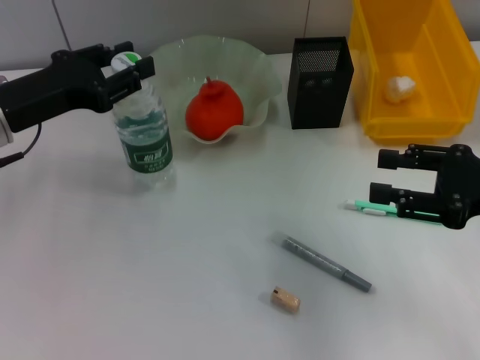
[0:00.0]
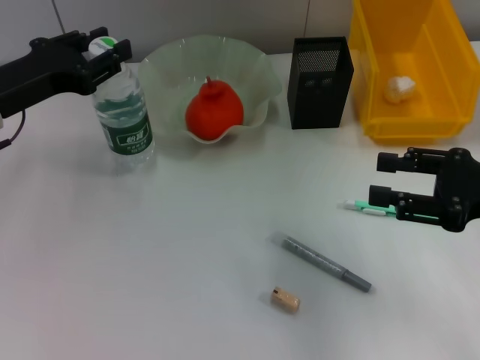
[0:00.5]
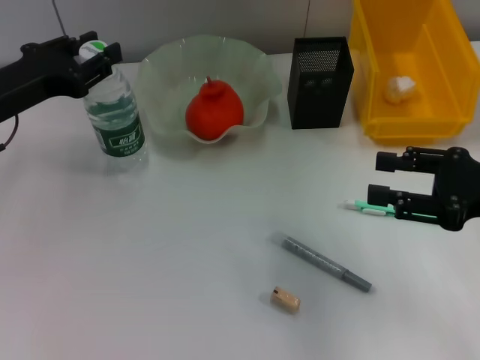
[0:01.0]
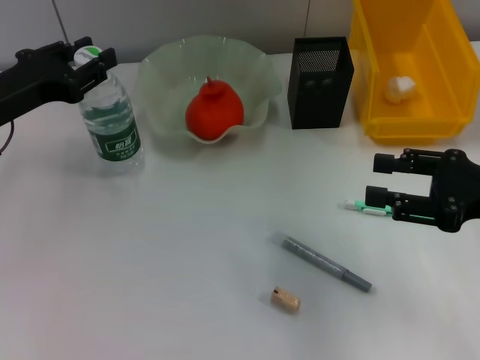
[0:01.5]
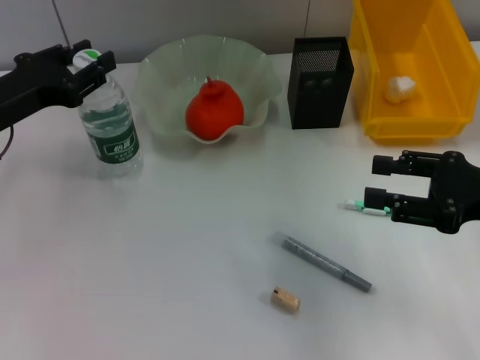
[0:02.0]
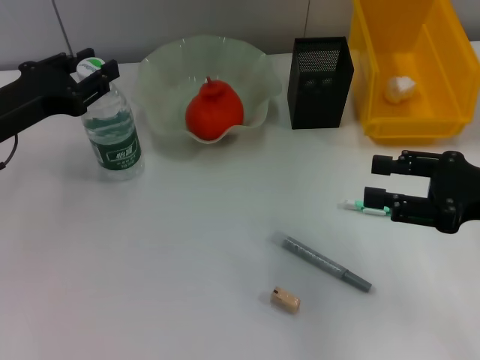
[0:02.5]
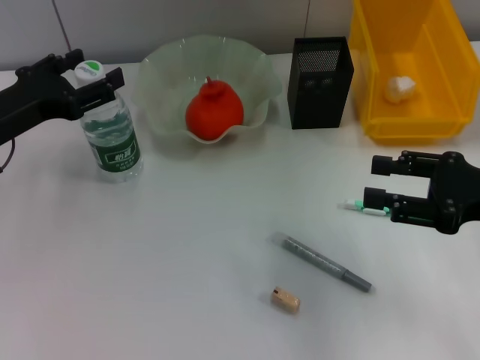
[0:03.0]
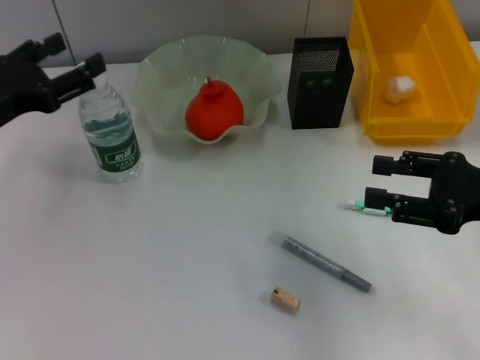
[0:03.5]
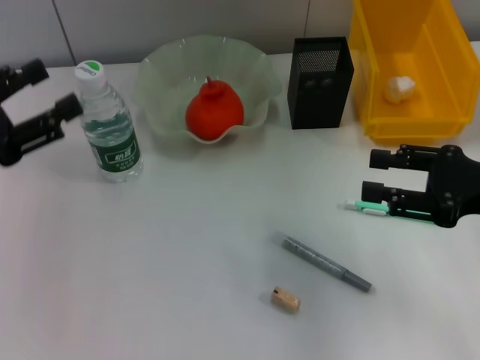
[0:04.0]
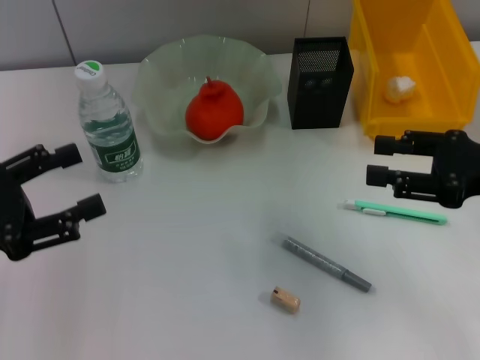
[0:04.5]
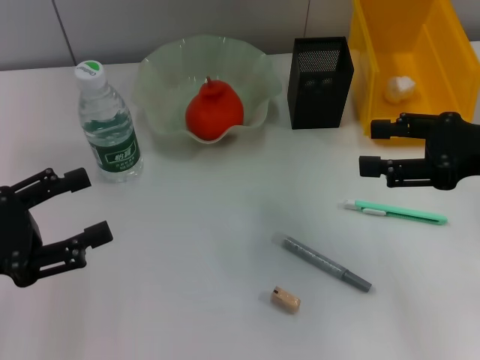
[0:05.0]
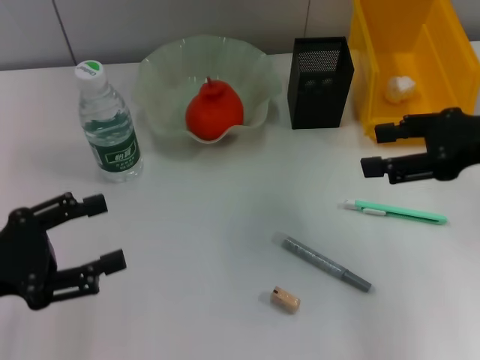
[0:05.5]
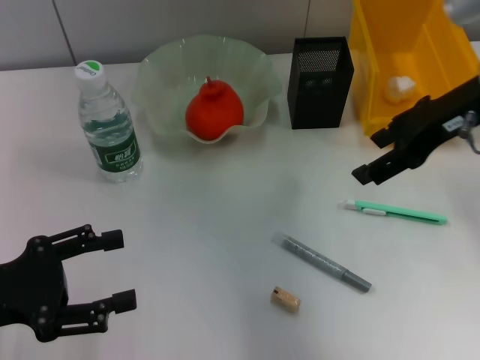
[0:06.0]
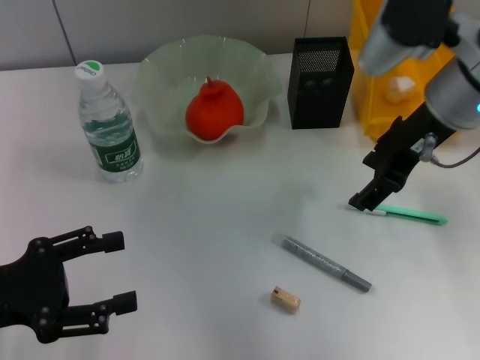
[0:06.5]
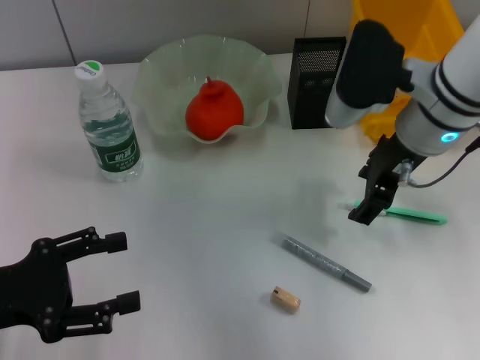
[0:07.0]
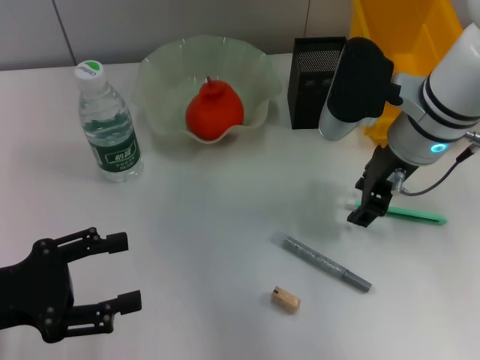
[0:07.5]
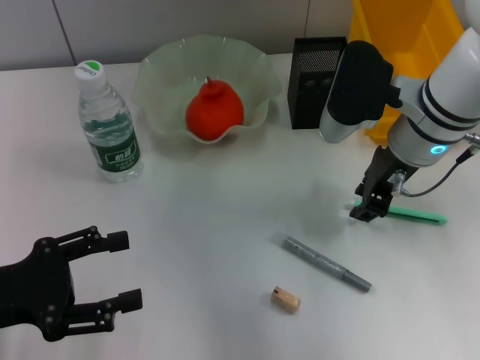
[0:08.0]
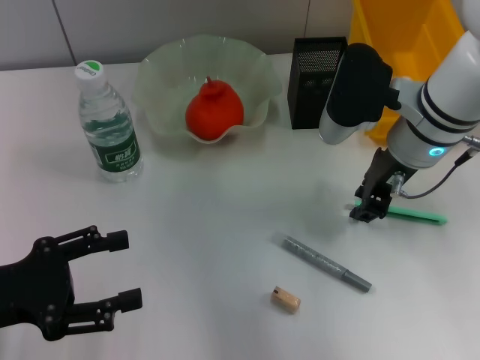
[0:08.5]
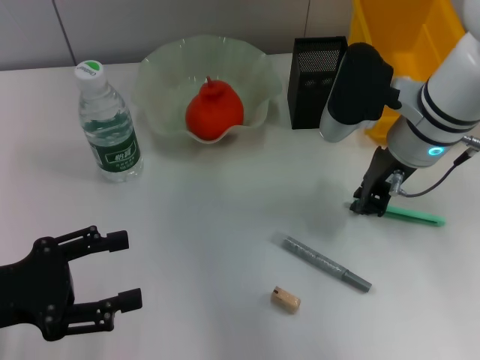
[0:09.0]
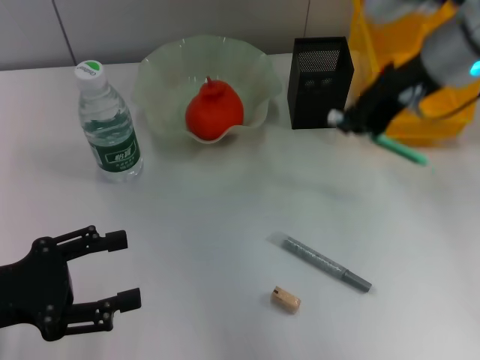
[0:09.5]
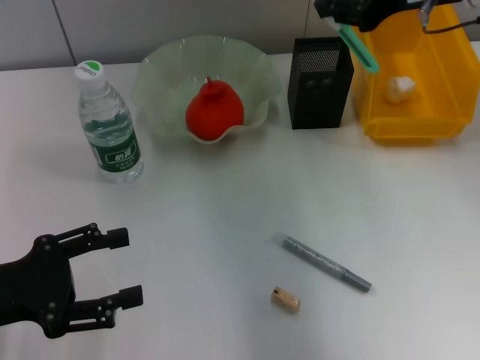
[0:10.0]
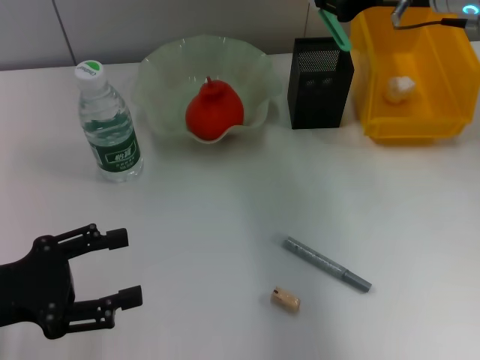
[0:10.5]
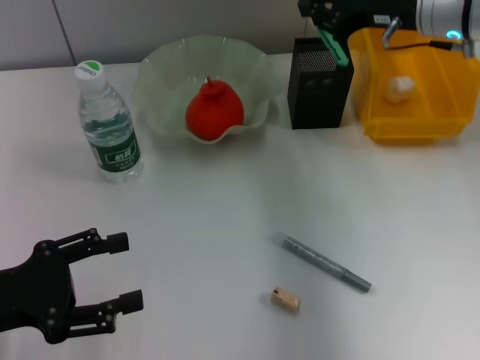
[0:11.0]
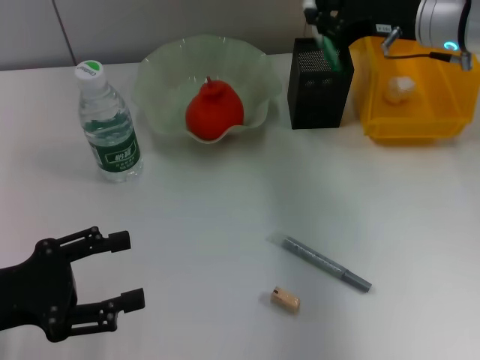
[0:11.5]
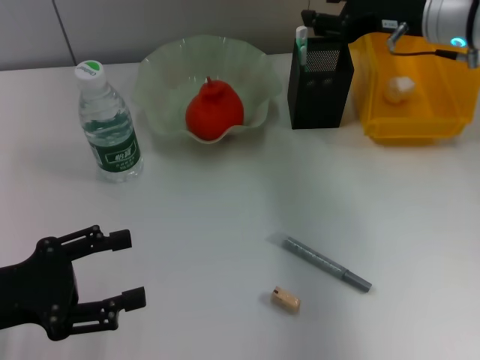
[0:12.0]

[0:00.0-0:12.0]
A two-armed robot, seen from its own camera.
Step, 0:00.0 to 0:02.5: Place the water bottle on the table with the left hand.
Step, 0:03.0 to 0:08.5: Grab the blue utility knife with the right hand.
Step, 0:09.0 to 0:11.5: Place the blue utility knife into the pen holder with the right hand.
0:00.0 to 0:02.0: There are only small adjustments of the grippers.
0:02.0 to 0:04.0: The left gripper travels backward by about 10 cm, and opens its fingers.
0:04.0 to 0:06.0: The right gripper travels upward, forward and to the left by about 15 cm; the left gripper moves backward, about 5 cm.
0:06.0 to 0:08.0: The right gripper goes some 10 cm downward and to the left, and closes up.
0:08.0 to 0:10.0: The right gripper heads upward and to the right, covering about 15 cm.
0:10.0 to 0:12.0: The right gripper moves downward, roughly 10 cm, and opens its fingers.

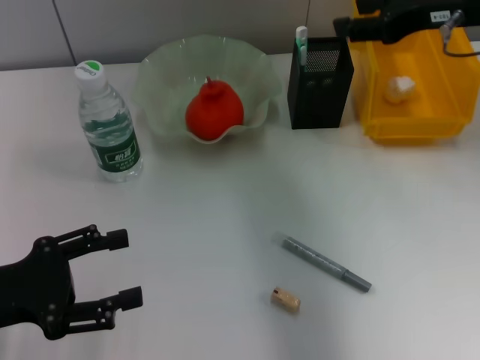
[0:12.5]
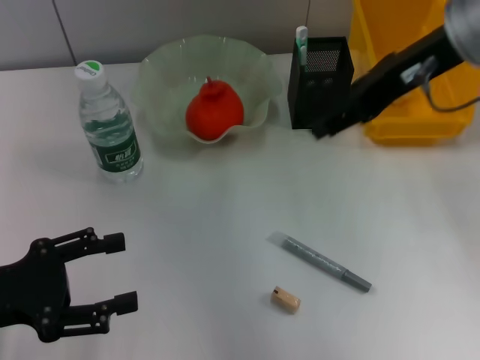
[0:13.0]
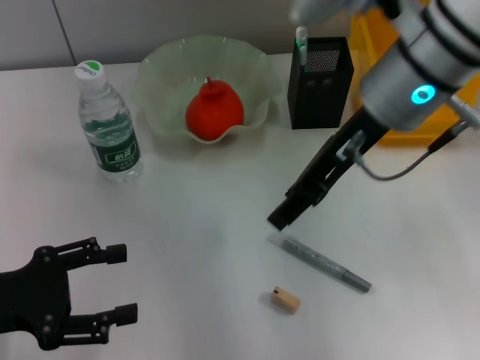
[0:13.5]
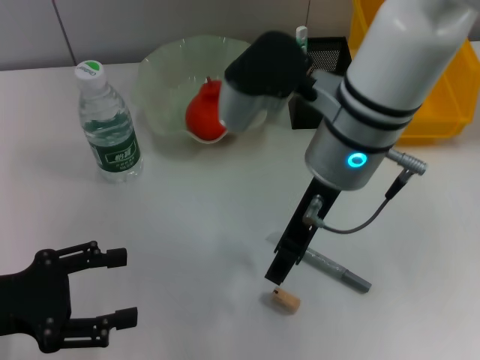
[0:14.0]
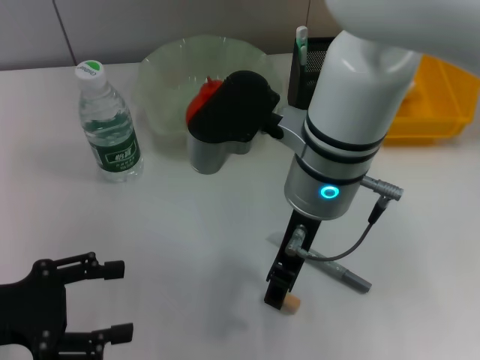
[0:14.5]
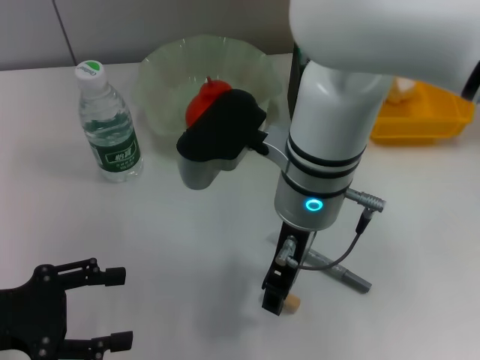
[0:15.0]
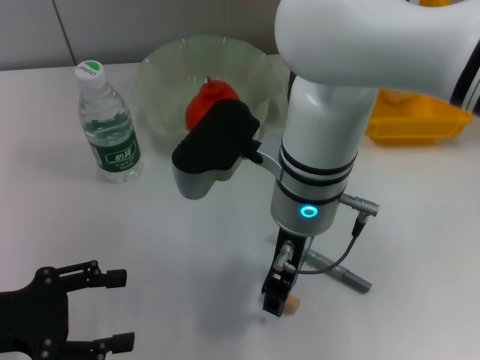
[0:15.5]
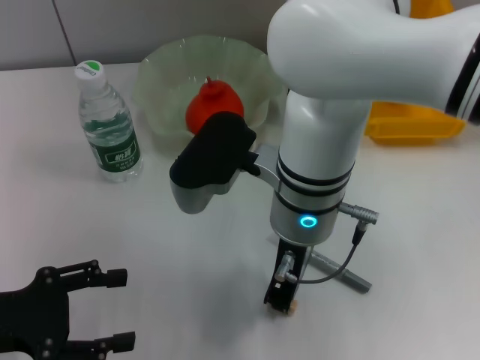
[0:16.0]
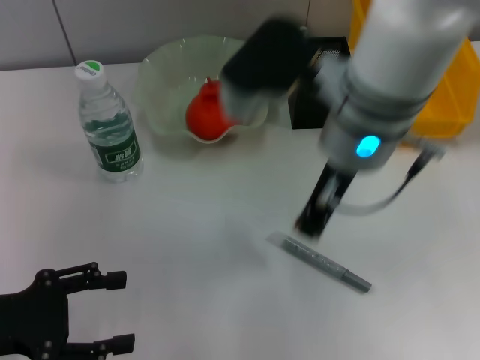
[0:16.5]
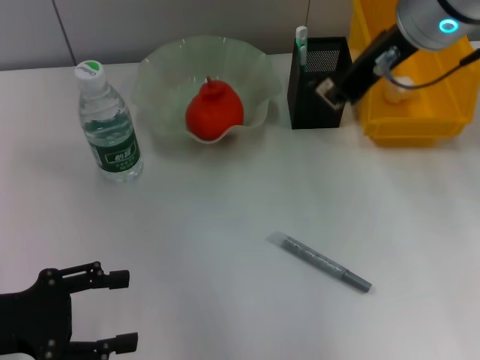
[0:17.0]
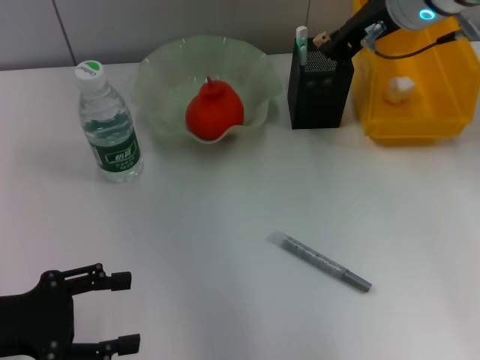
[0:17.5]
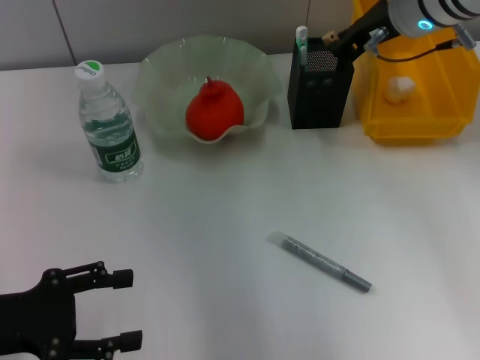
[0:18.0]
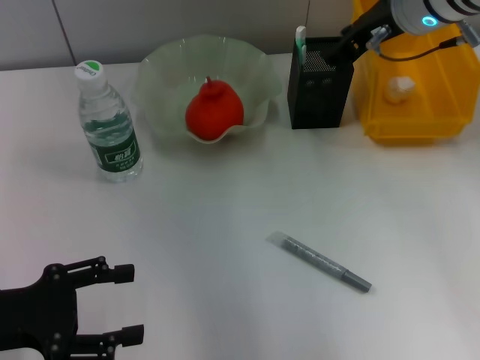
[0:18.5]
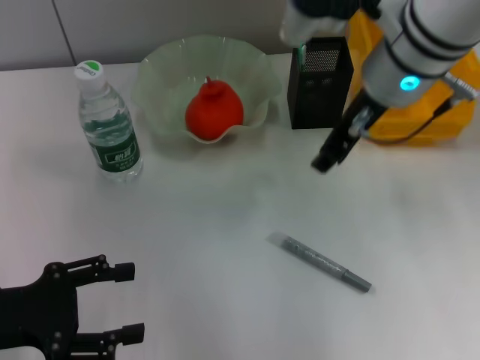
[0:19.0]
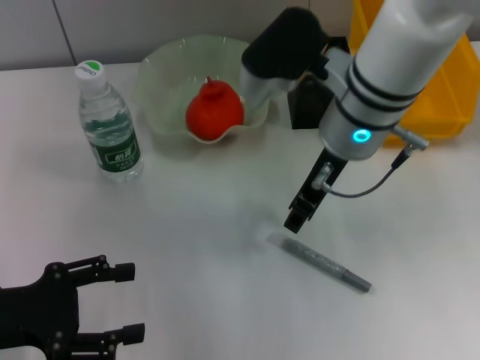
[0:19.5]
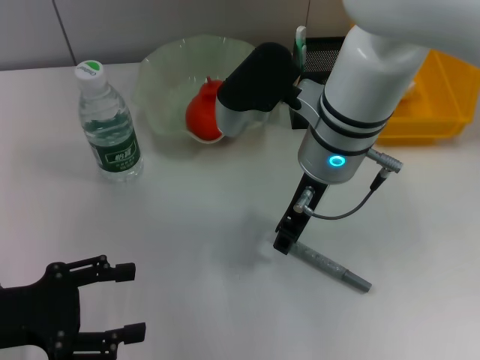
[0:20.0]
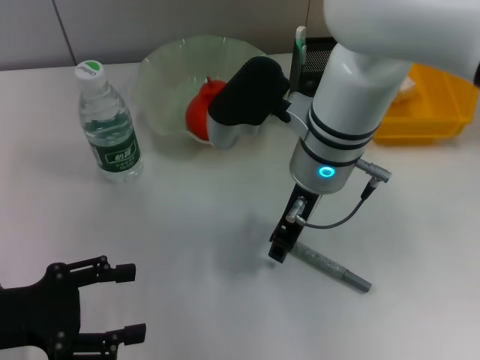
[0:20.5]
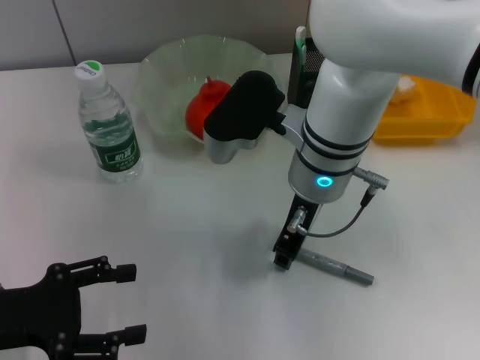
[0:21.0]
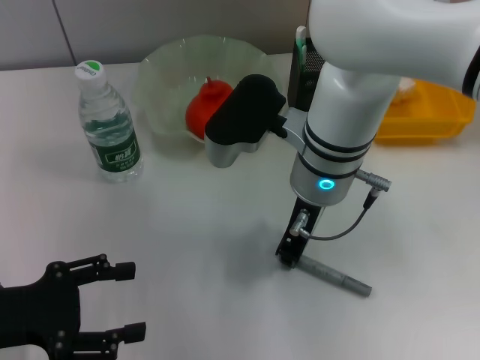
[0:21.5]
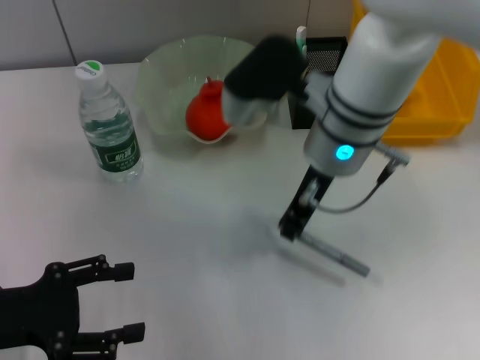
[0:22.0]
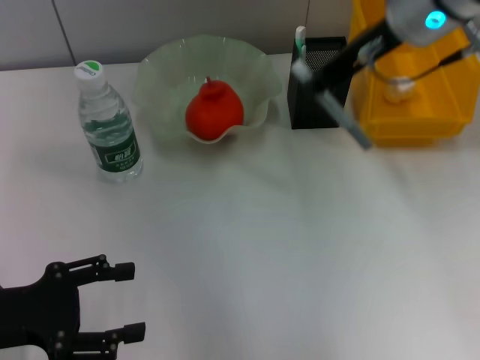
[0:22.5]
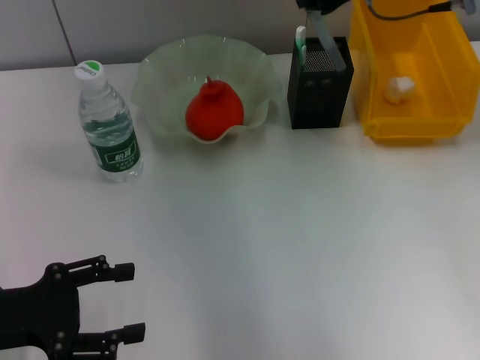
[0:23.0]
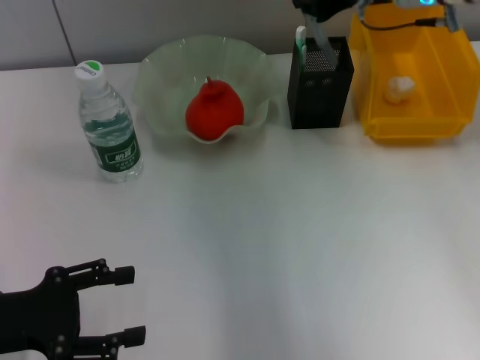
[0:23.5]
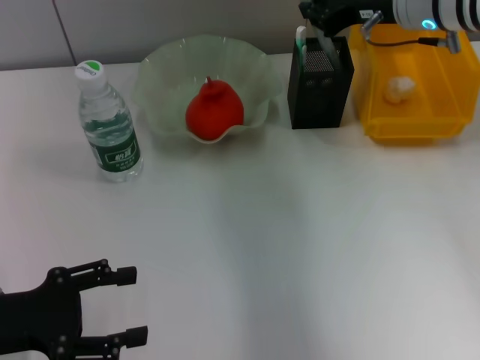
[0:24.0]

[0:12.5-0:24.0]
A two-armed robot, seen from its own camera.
Step, 0:12.5 to 0:16.0: Grab the eraser with the right hand.
Step, 0:16.5 to 0:18.0: Put the eraser into the pen holder with the right hand.
Step, 0:18.5 to 0:21.5: Grab the gray glue with the right hand.
0:12.5 to 0:14.5: The right gripper shifts some 20 cm to the left.
0:14.5 to 0:16.5: The right gripper changes place by some 5 cm, and closes up.
0:16.5 to 0:18.5: The right gripper travels forward and to the right by roughly 15 cm.
0:18.5 to 0:20.0: The right gripper moves to the left, backward and downward, roughly 15 cm.
0:20.0 to 0:22.0: The right gripper closes.
0:22.0 to 0:24.0: The right gripper heads to the right and forward, covering some 15 cm.

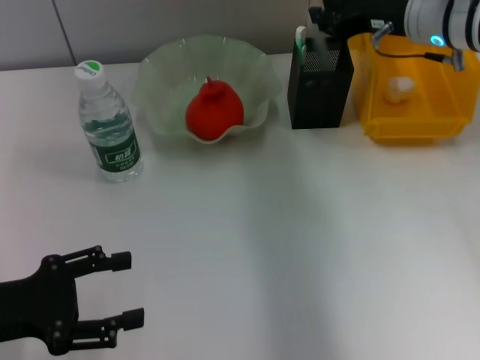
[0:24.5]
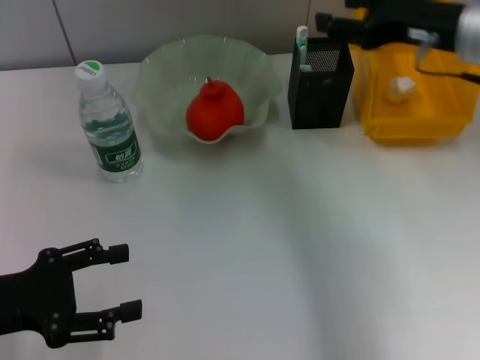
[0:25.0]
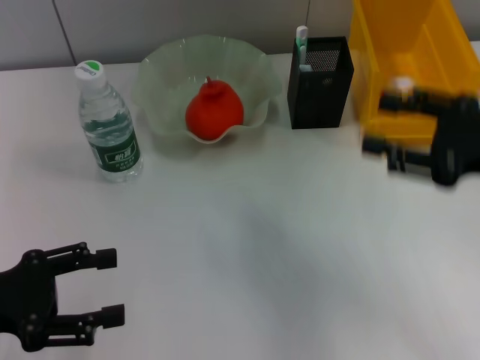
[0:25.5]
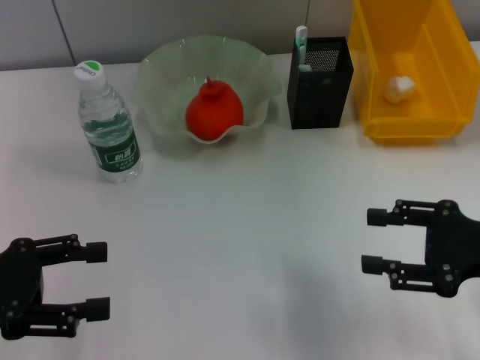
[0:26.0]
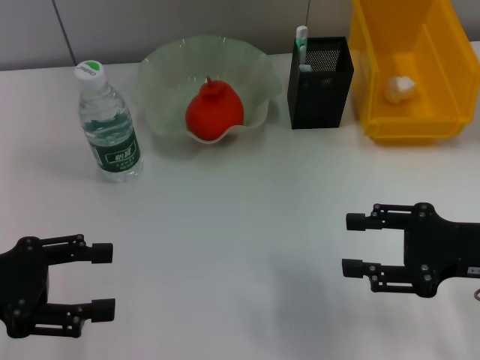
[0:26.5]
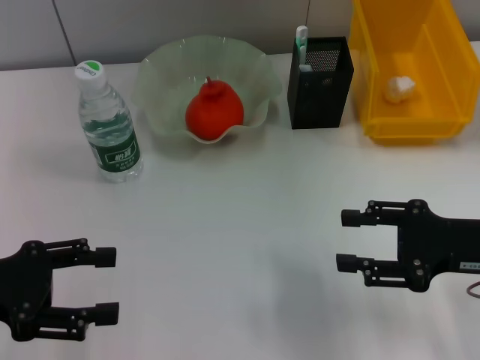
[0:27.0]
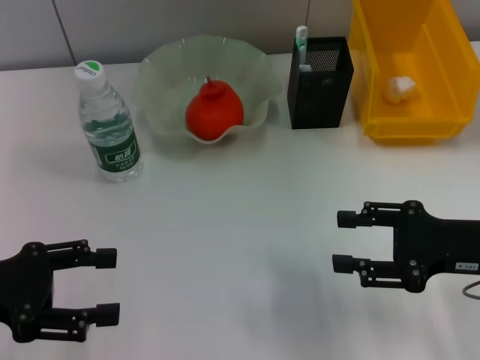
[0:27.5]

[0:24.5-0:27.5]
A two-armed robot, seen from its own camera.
0:24.5 to 0:26.0: The right gripper travels backward by approximately 20 cm, and opens.
0:26.0 to 0:27.5: The grippers make only small movements.
